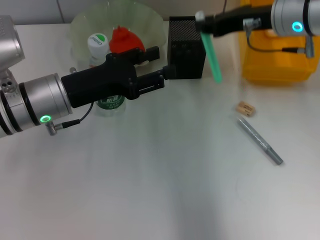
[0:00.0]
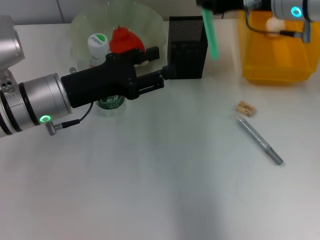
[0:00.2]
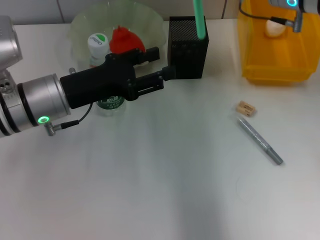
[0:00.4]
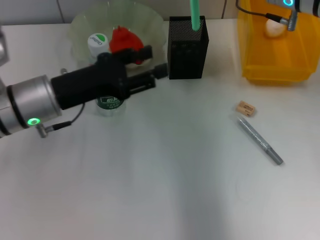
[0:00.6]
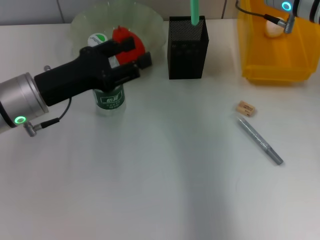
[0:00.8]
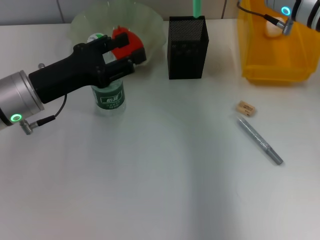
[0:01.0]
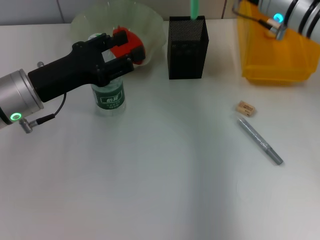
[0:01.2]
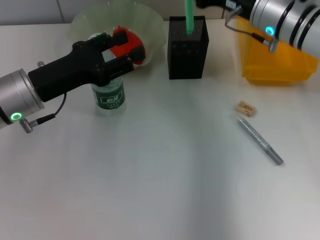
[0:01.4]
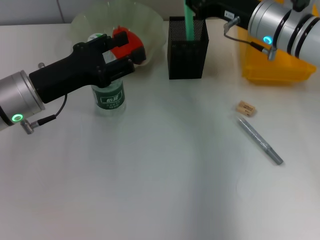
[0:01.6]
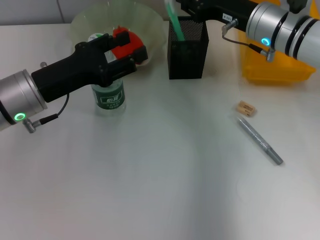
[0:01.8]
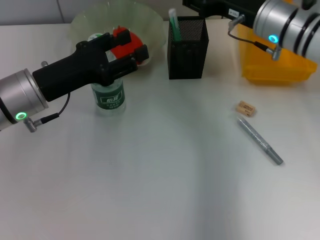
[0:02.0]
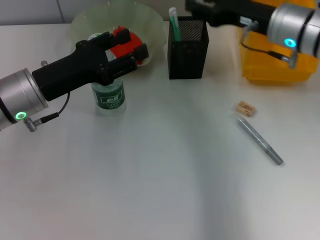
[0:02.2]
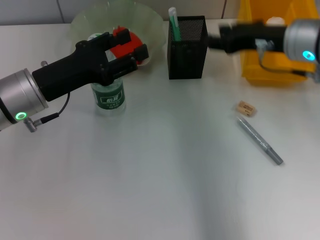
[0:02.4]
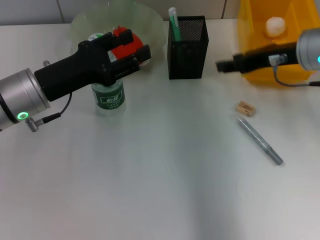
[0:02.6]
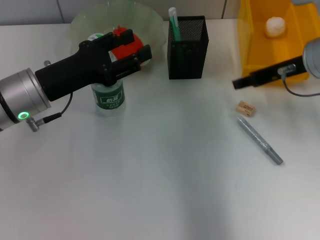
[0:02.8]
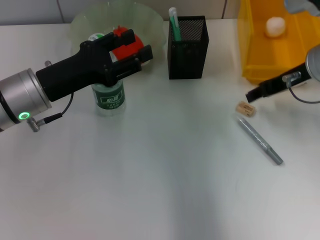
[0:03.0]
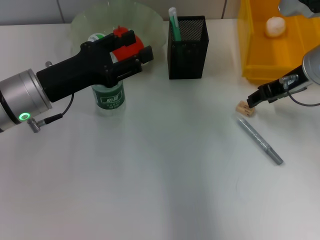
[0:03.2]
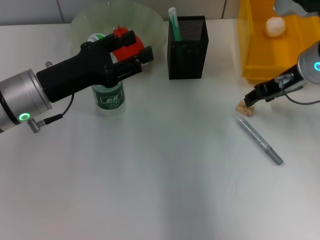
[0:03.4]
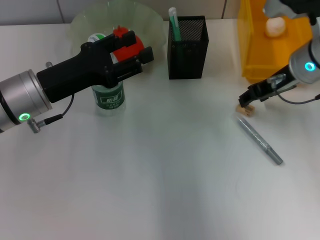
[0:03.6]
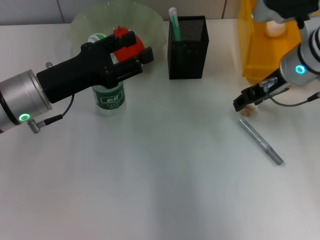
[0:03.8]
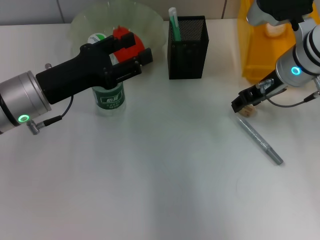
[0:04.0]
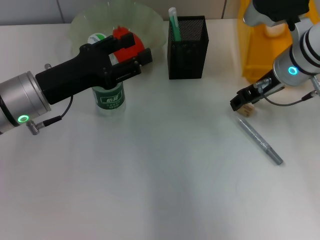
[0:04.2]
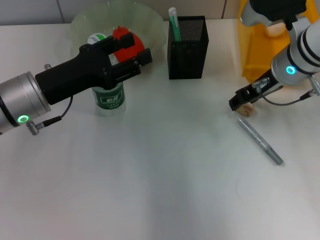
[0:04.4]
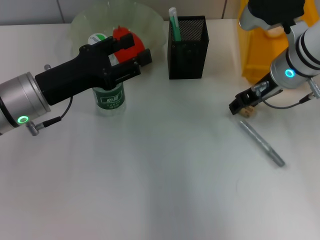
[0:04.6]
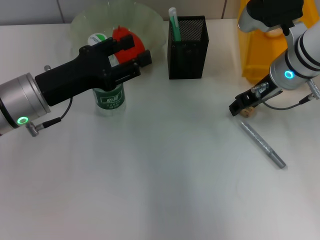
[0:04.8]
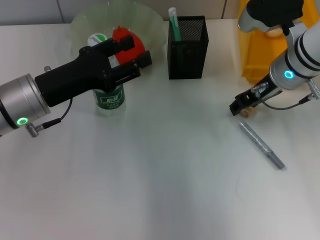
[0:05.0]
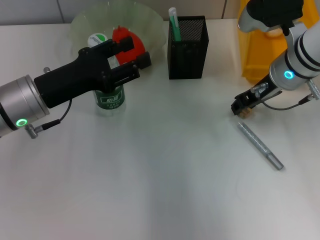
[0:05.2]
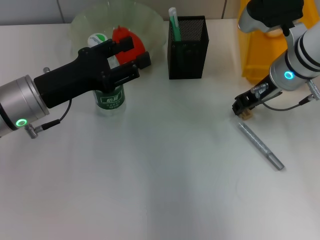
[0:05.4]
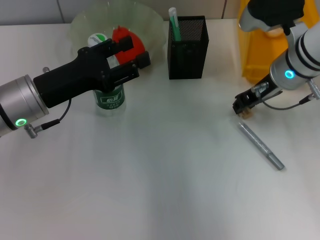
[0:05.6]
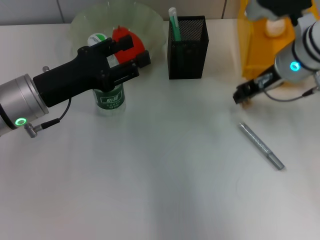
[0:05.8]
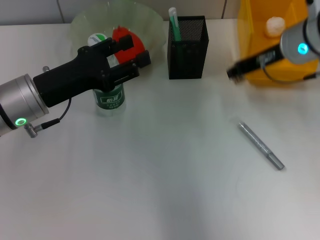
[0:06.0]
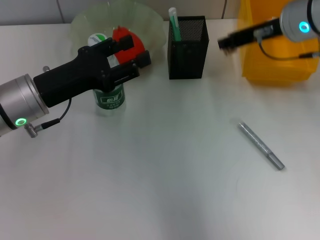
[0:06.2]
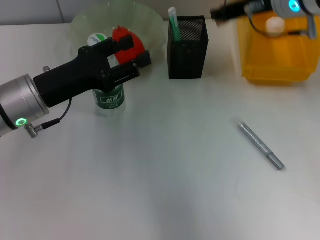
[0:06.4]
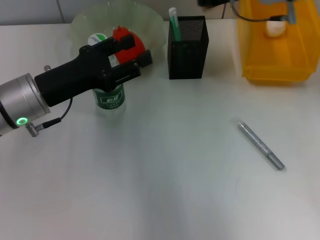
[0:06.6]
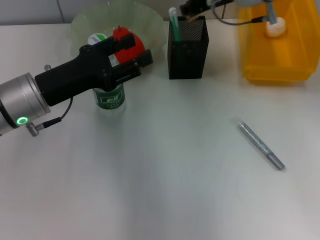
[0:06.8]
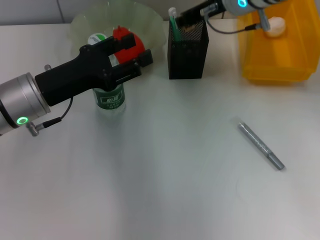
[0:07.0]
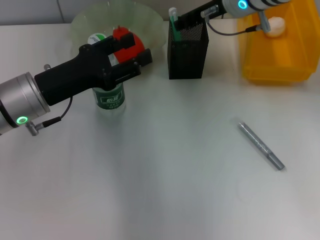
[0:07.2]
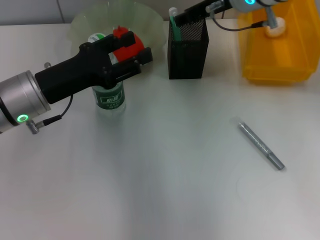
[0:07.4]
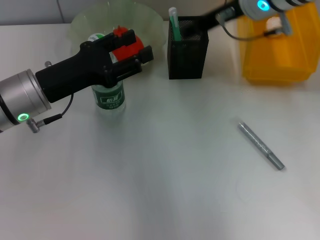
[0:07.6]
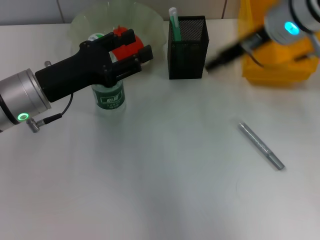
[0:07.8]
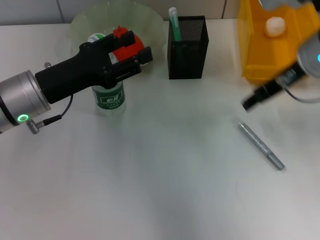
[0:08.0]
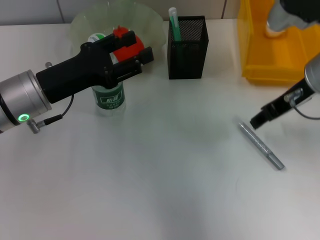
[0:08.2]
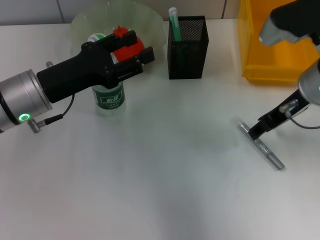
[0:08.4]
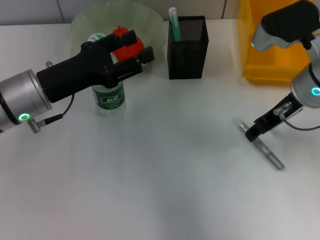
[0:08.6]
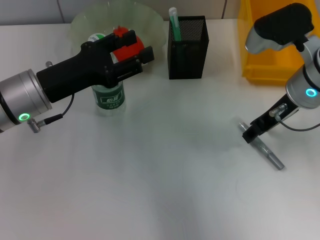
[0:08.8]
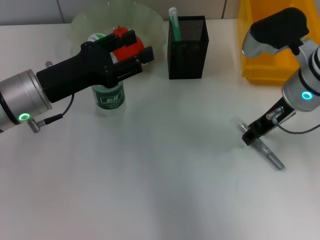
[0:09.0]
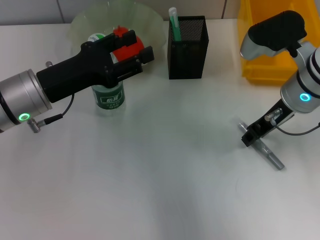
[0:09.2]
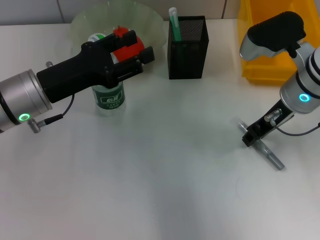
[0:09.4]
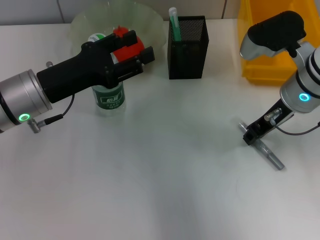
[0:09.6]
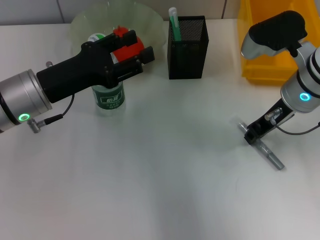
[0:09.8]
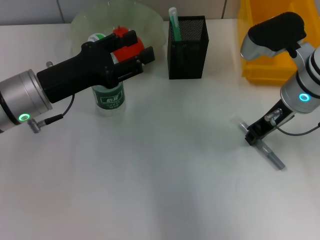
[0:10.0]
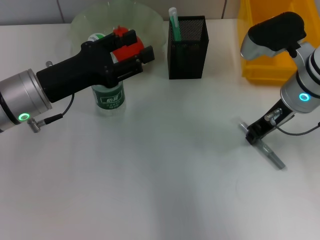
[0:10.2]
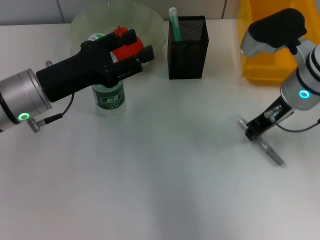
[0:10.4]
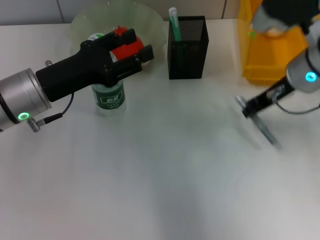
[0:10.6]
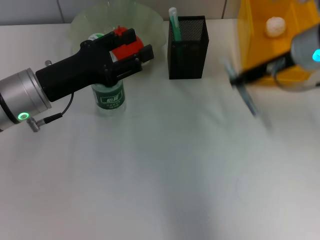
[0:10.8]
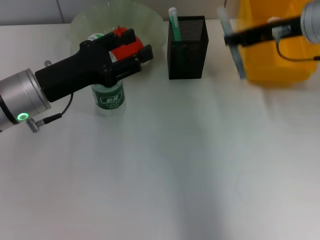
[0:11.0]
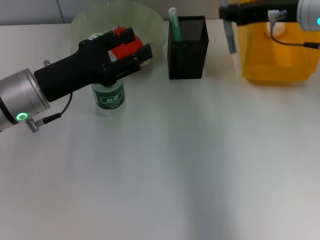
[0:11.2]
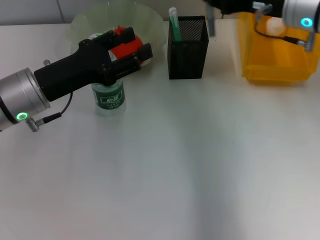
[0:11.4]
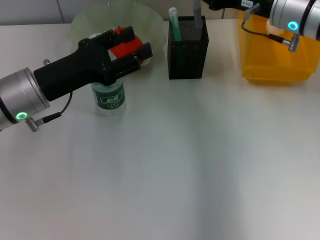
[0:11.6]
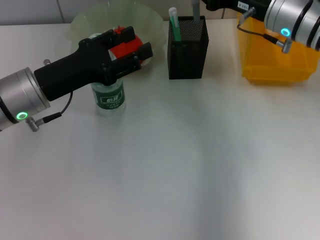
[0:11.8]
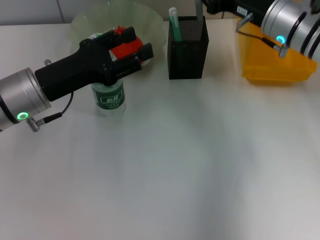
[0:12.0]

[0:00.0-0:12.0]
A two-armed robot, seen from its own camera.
Step, 0:00.0 to 0:01.8: Place the blue utility knife into the pen holder with the right hand.
Step, 0:02.0 to 0:05.4: Grab the eraser with the right hand.
Step, 0:05.6 to 0:07.0: Put the eraser into the pen holder with the right hand.
Step, 0:07.2 to 0:10.0: Grab the gray glue with the right hand.
0:00.0 to 0:01.6: The right gripper travels downward by some 5 cm.
0:01.6 to 0:03.0: The right gripper is displaced to the right by roughly 5 cm, and opens its fingers.
0:03.0 to 0:04.4: The right gripper changes place by about 5 cm.
0:04.4 to 0:06.0: The right gripper closes its fingers.
0:06.0 to 0:07.6: The right gripper goes approximately 5 cm to the left, and opens.
0:07.6 to 0:09.0: The right gripper travels downward and backward by approximately 10 cm.
0:09.0 to 0:10.4: The right gripper closes its fingers.
0:10.4 to 0:12.0: The right gripper moves forward, roughly 5 cm.

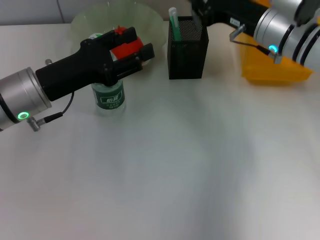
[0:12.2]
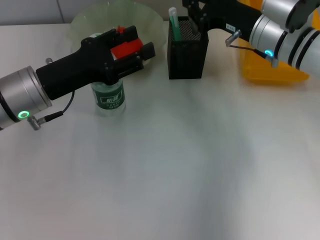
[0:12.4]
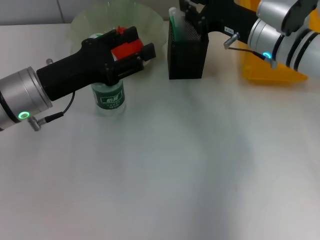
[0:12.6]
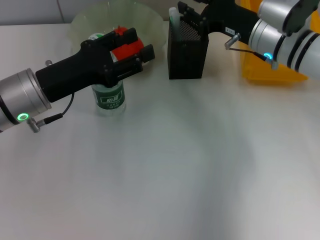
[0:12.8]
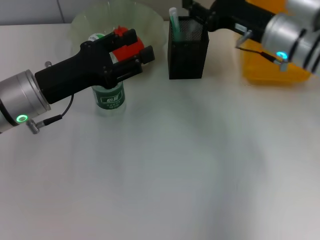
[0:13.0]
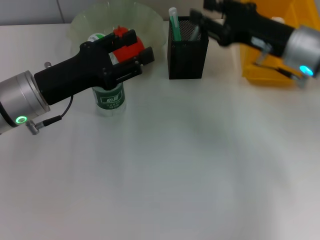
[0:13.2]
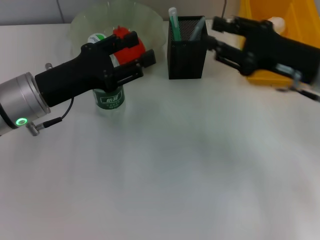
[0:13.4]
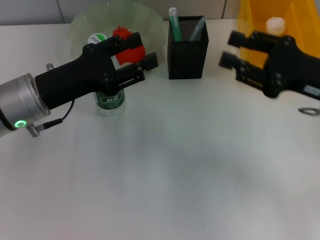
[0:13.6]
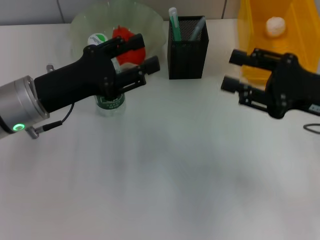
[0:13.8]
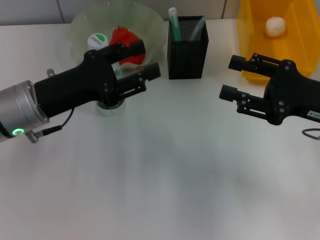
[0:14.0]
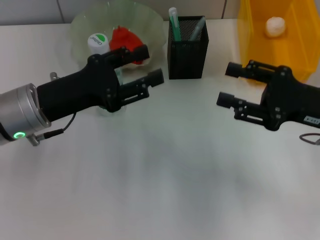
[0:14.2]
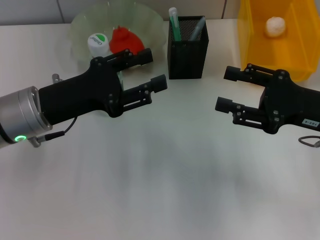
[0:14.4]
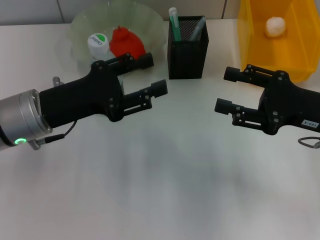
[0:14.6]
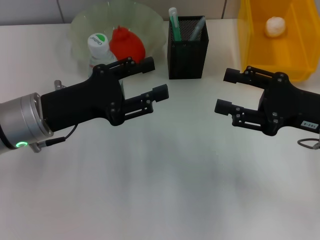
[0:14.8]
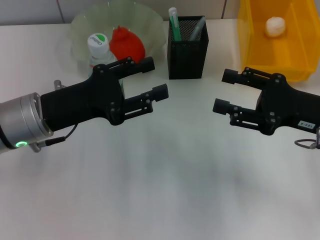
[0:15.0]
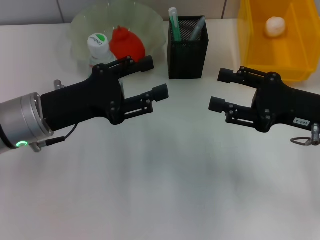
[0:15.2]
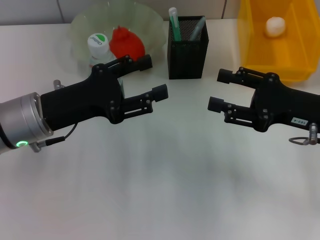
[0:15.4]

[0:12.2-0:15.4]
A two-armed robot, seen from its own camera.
0:12.2 to 0:13.8: The right gripper heads backward and to the right, covering roughly 15 cm, and opens.
0:13.8 to 0:15.4: The grippers stay close to where they were, moving slightly.

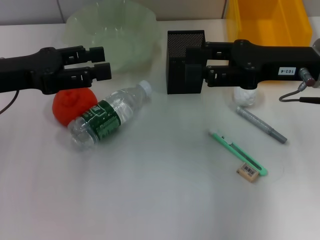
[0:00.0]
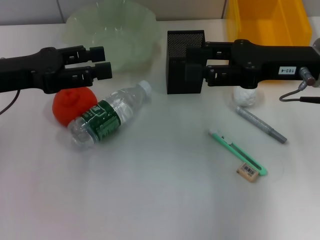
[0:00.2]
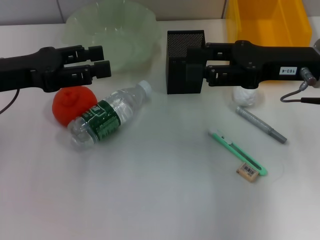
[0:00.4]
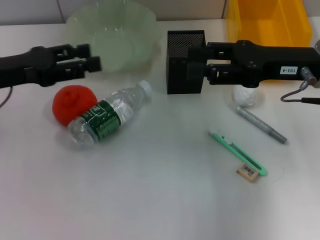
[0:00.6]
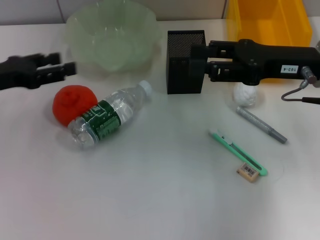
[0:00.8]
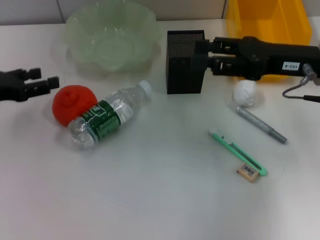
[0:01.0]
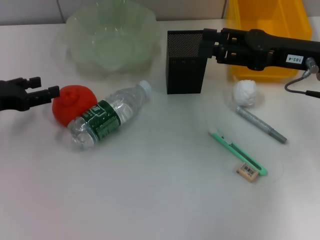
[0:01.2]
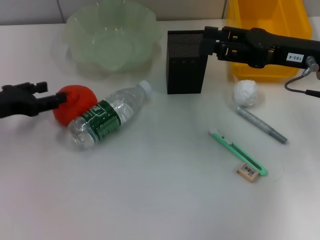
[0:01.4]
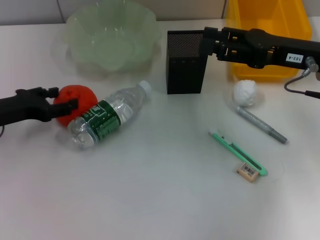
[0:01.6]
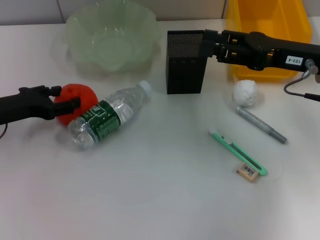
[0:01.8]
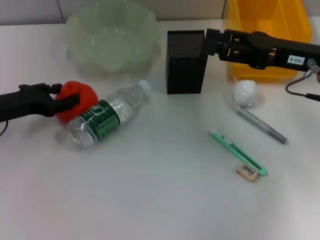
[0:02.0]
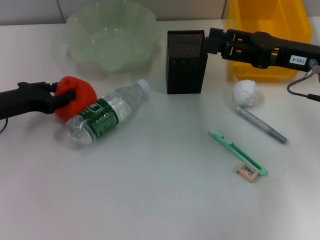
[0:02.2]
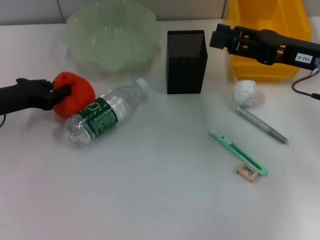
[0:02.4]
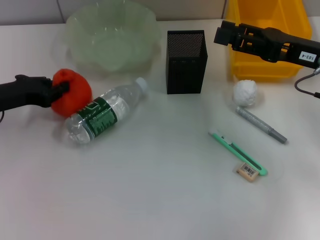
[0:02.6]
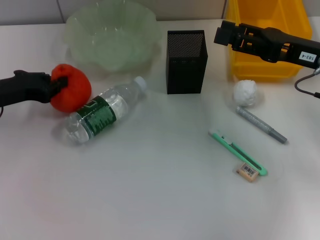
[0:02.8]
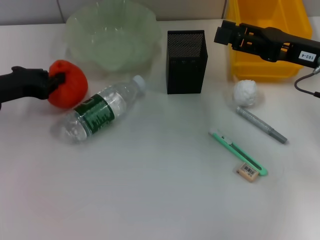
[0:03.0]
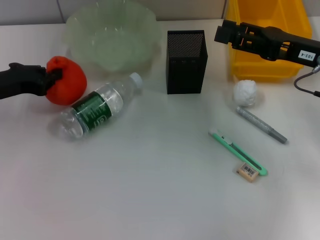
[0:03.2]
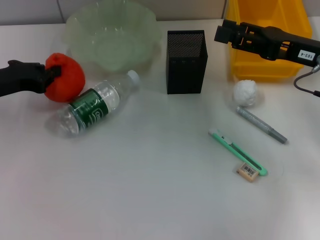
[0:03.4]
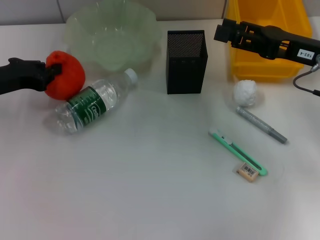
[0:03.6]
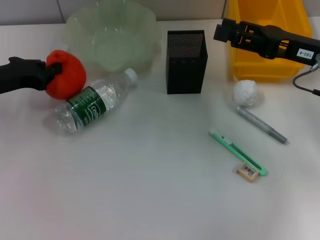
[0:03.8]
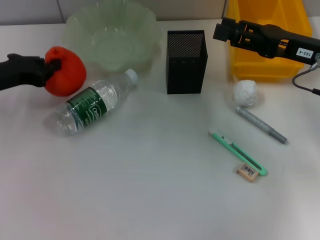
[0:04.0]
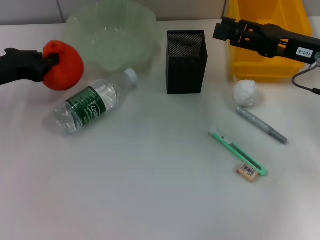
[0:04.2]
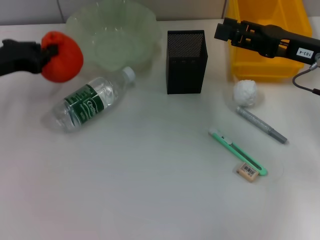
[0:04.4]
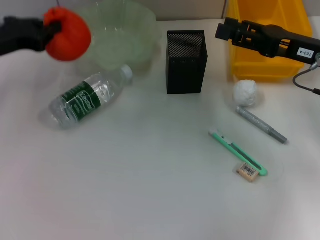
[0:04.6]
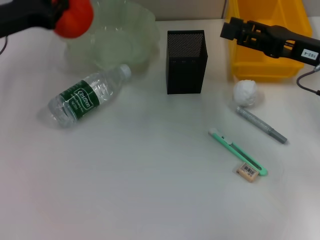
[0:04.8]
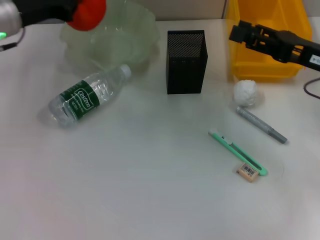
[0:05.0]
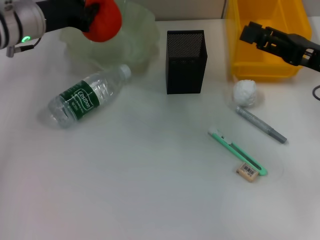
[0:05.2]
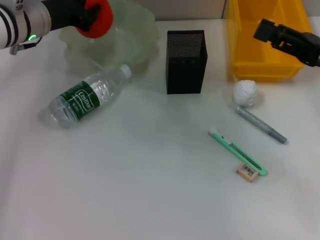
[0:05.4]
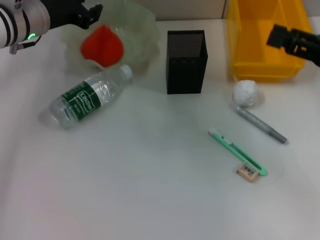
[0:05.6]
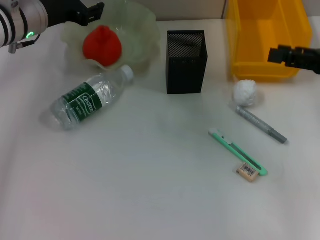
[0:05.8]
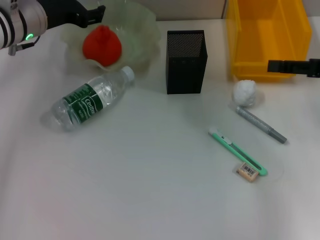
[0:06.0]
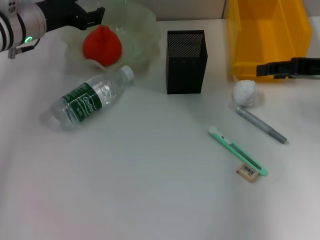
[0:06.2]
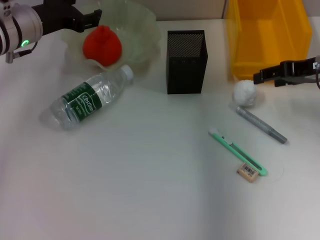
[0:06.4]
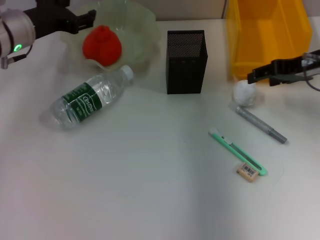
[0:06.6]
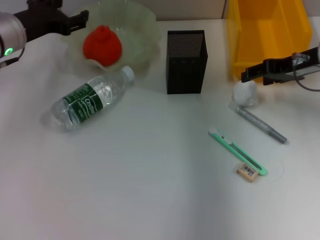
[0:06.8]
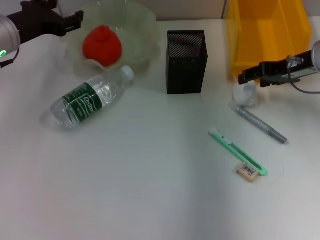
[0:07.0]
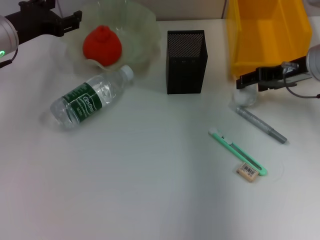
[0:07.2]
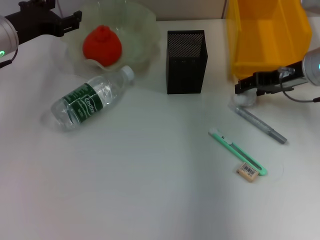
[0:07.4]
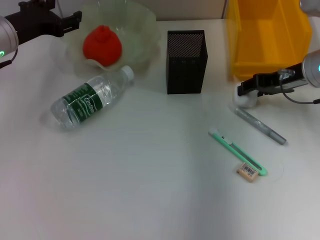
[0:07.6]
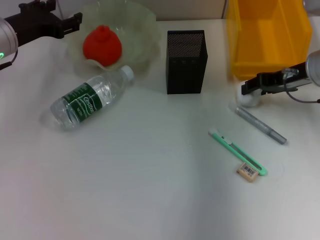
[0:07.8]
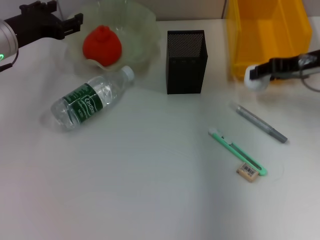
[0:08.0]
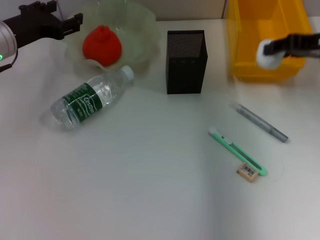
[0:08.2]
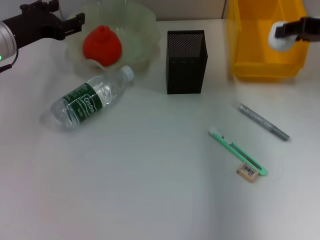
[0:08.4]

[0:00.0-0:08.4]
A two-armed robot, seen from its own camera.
Step, 0:00.0 to 0:02.2: Grab the orange with the left hand.
Step, 0:02.6 to 0:05.4: Place the orange into the fruit bowl with the left hand.
Step, 0:05.8 to 0:07.6: Grab the paper ball with the right hand.
0:00.0 to 0:01.4: The left gripper heads downward, covering approximately 10 cm.
0:01.4 to 0:02.8: The left gripper closes its fingers.
0:02.8 to 0:04.2: The grippers stay close to where they were, moving slightly.
0:04.2 to 0:05.6: The right gripper is displaced to the right by roughly 5 cm. The left gripper moves to the right and forward, about 15 cm, and opens.
0:05.6 to 0:07.0: The right gripper is displaced forward and to the left by approximately 10 cm, while the left gripper changes place by some 5 cm, and opens.
0:07.0 to 0:08.4: The right gripper travels upward by approximately 5 cm.
